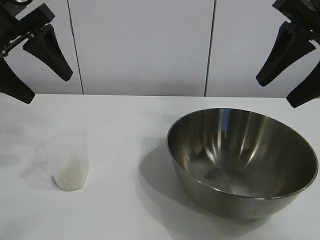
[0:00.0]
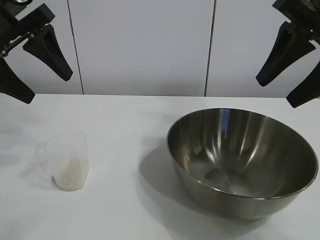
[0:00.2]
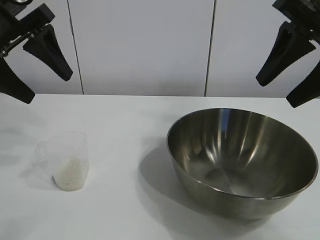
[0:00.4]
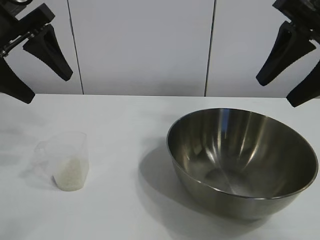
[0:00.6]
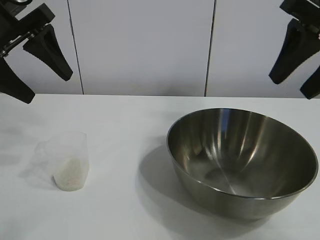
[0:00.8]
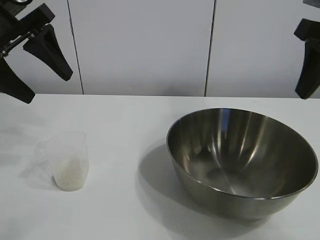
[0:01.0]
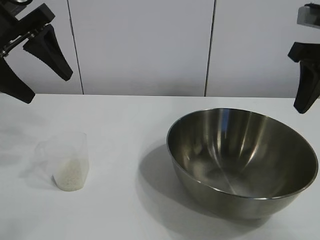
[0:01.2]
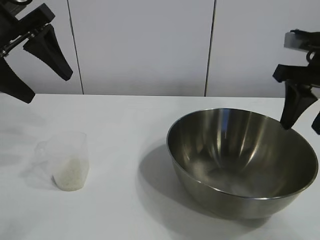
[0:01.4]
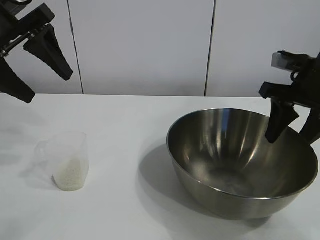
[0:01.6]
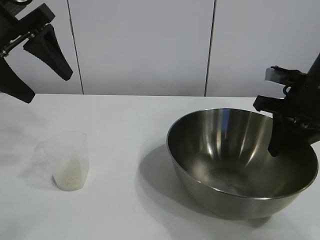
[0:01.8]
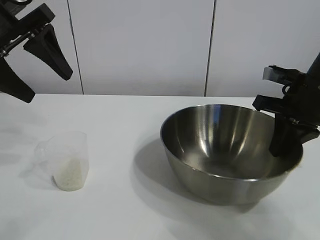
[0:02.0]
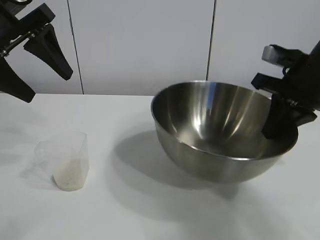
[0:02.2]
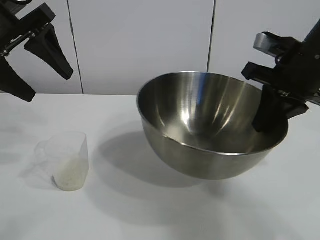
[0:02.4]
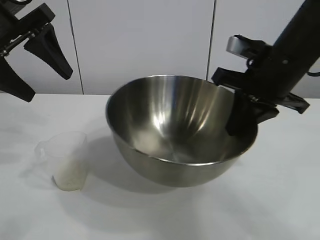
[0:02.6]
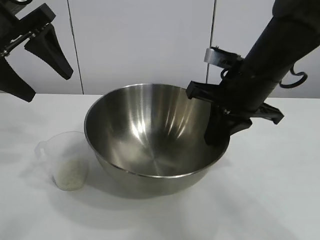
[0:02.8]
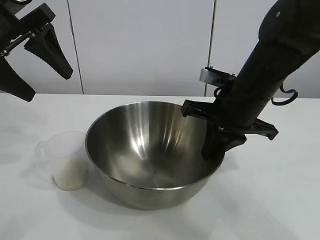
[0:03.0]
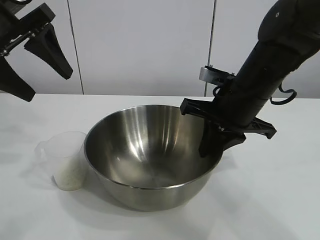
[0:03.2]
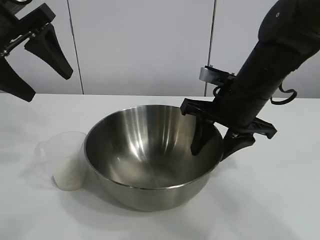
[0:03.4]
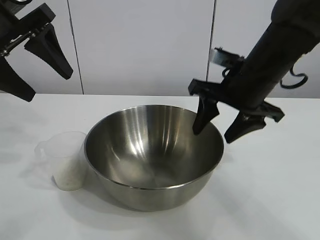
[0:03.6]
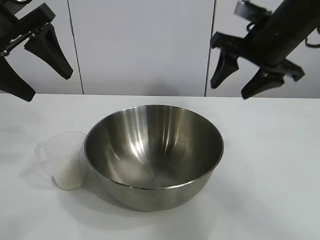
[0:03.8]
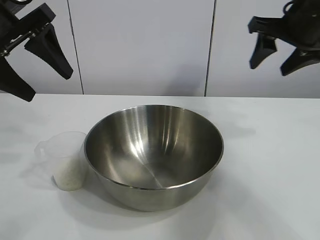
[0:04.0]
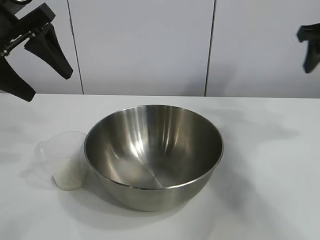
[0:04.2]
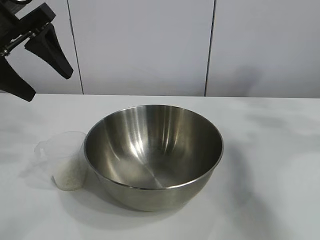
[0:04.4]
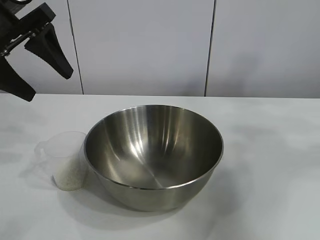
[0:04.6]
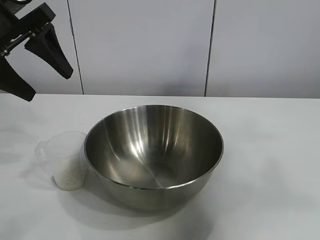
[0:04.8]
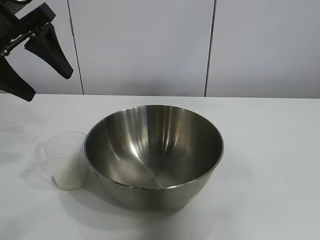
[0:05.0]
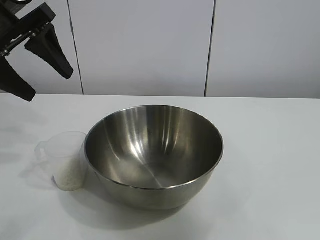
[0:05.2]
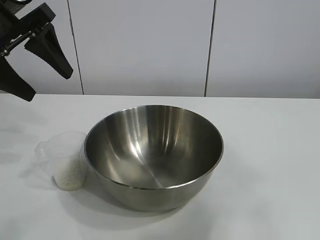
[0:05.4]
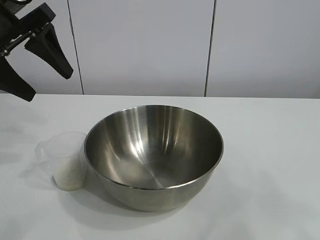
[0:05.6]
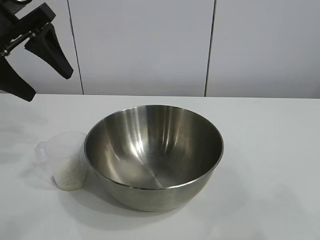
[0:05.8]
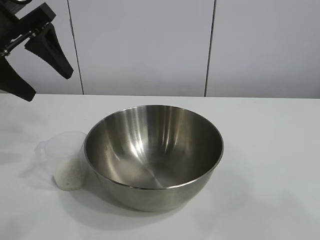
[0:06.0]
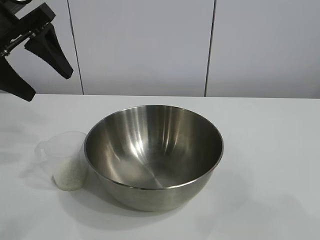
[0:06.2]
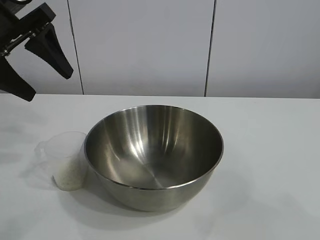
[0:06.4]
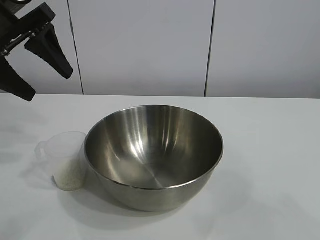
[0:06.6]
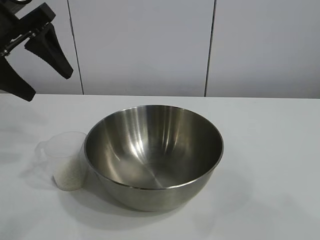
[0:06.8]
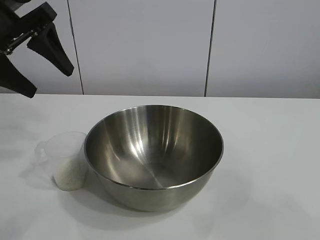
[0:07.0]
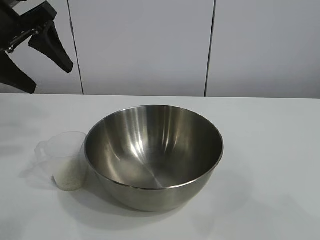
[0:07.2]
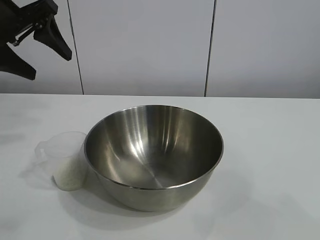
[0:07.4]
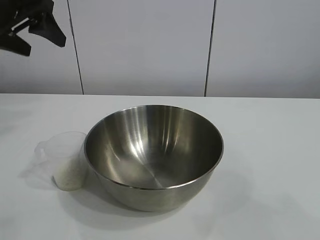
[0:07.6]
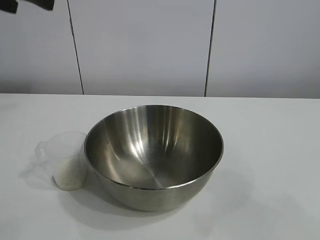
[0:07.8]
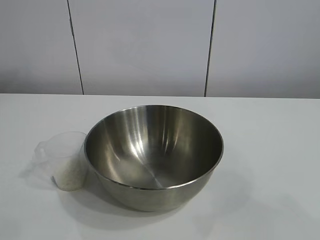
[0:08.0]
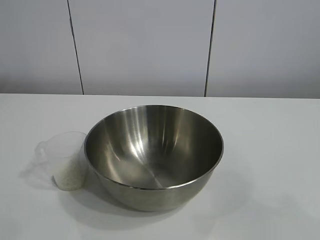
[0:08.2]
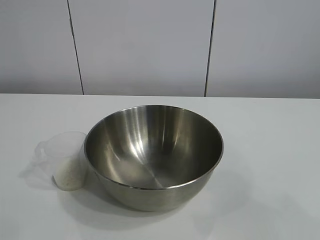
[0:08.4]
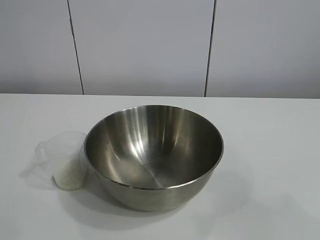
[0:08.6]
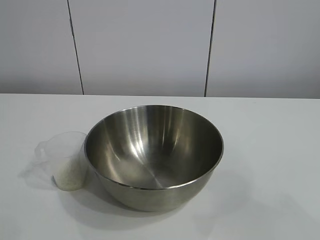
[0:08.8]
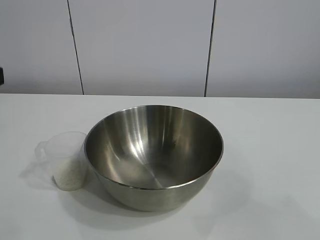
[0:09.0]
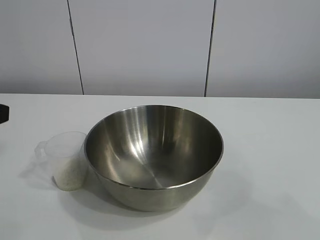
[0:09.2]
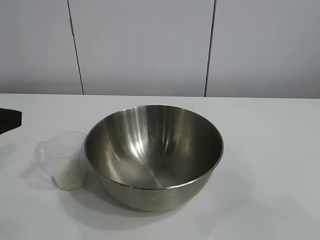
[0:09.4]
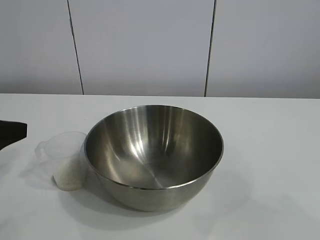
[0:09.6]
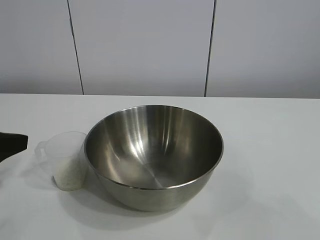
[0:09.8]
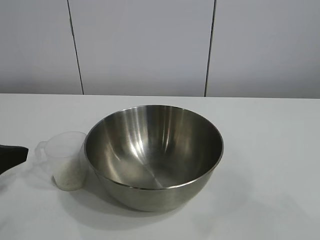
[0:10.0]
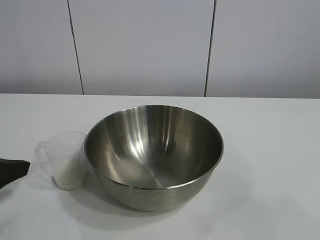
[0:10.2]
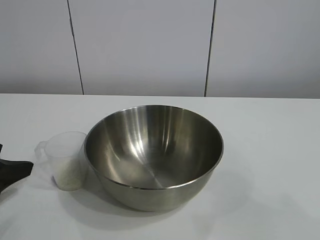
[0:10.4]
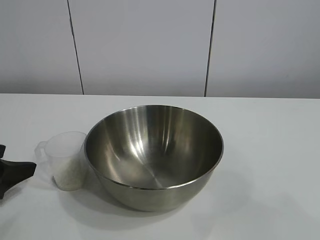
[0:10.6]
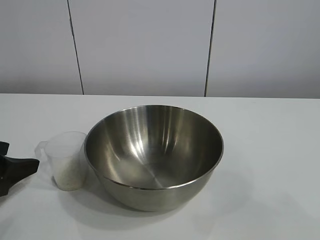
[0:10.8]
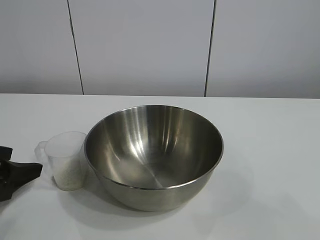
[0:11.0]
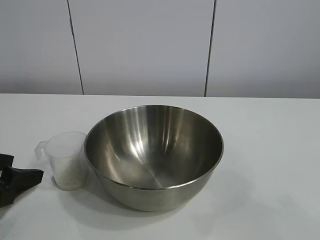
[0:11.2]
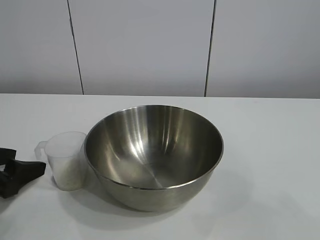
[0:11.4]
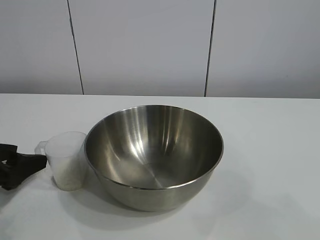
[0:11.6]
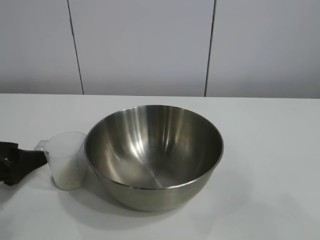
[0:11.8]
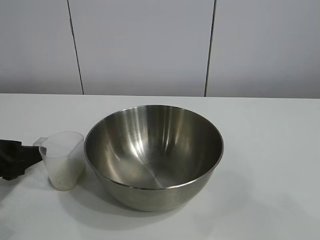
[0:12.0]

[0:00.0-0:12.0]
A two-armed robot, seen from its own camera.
Task of the whole recording: the right gripper grasp the rice container and place it in the center of the table, the left gripper grasp the rice scoop and pour the rice into the rice container.
Step, 0:00.6 to 0:03.4: Move the bowl in the center of view with right gripper.

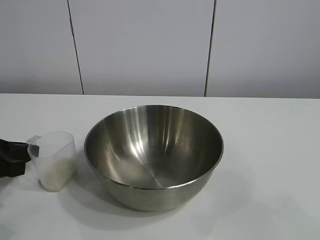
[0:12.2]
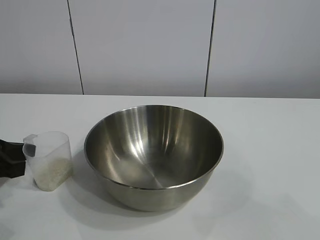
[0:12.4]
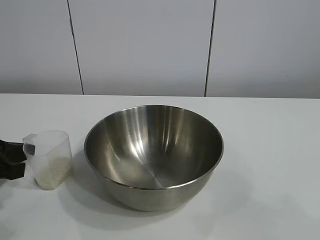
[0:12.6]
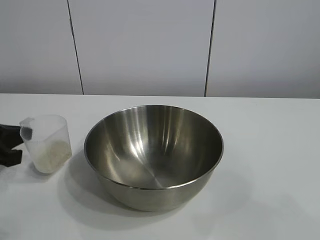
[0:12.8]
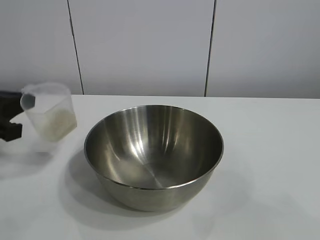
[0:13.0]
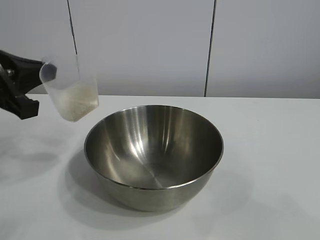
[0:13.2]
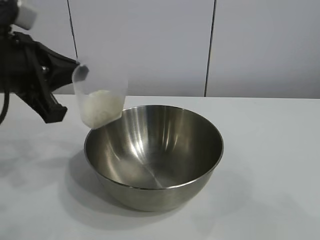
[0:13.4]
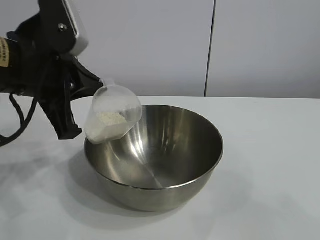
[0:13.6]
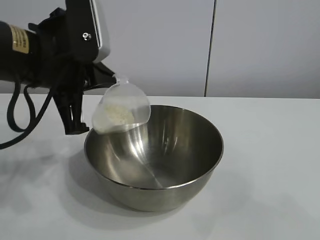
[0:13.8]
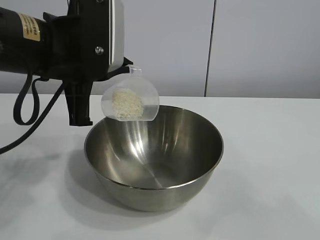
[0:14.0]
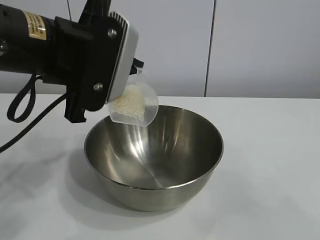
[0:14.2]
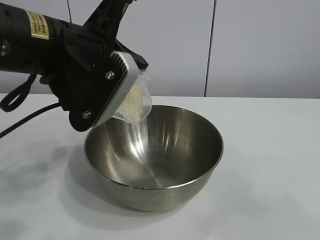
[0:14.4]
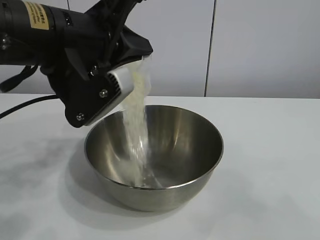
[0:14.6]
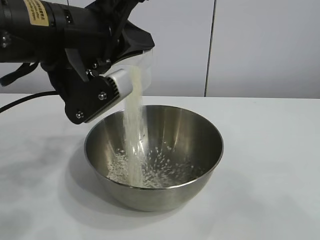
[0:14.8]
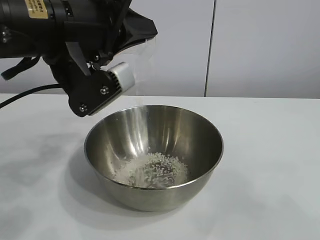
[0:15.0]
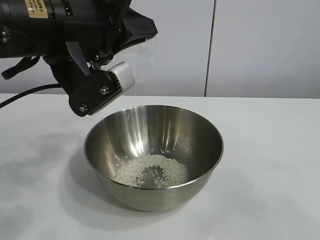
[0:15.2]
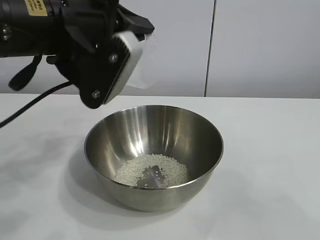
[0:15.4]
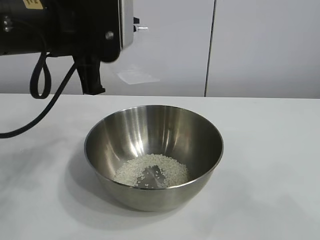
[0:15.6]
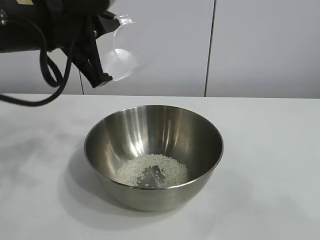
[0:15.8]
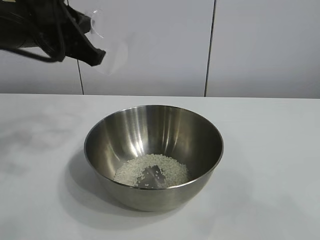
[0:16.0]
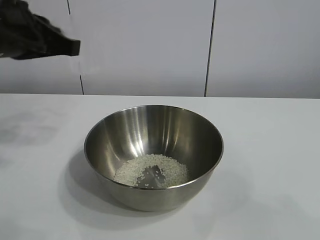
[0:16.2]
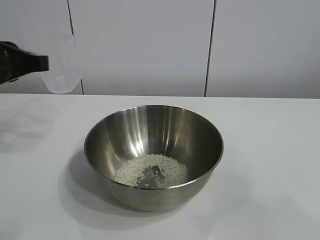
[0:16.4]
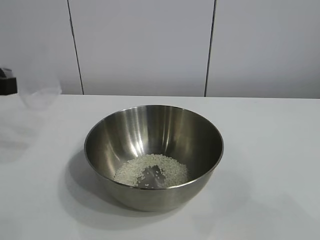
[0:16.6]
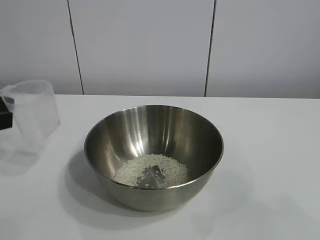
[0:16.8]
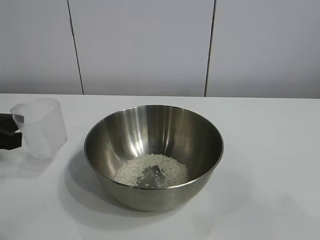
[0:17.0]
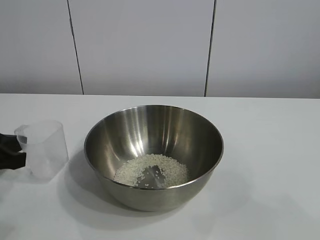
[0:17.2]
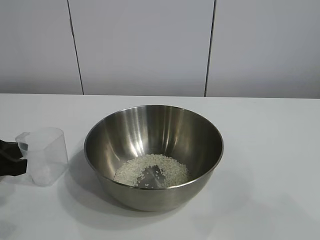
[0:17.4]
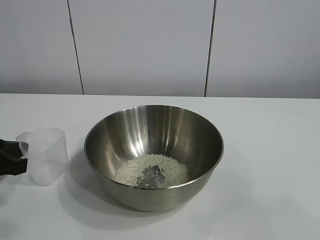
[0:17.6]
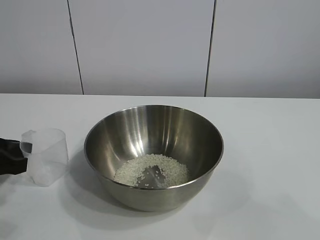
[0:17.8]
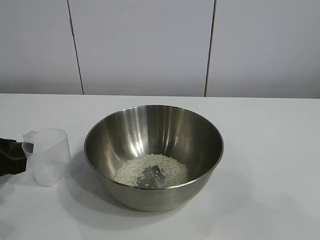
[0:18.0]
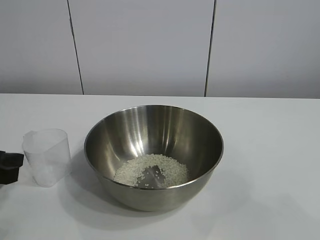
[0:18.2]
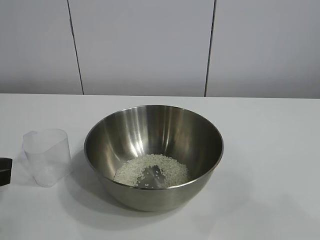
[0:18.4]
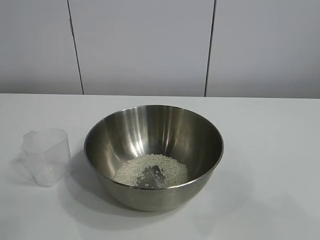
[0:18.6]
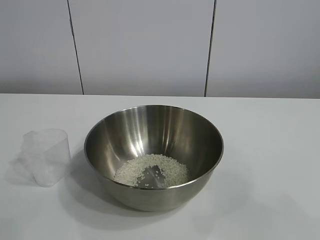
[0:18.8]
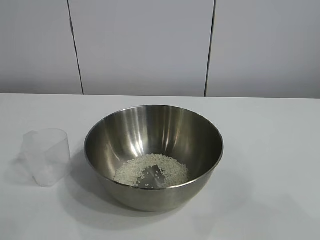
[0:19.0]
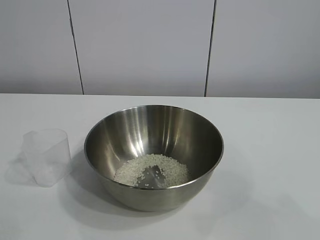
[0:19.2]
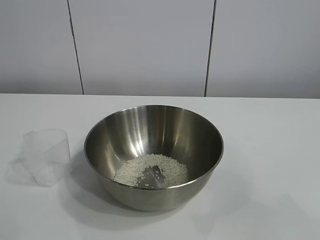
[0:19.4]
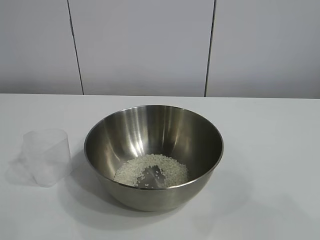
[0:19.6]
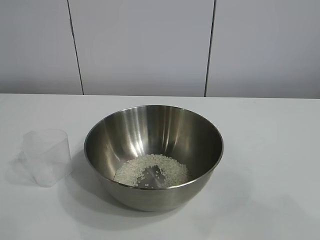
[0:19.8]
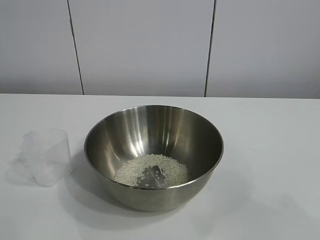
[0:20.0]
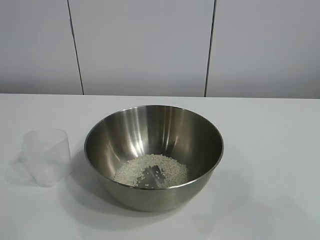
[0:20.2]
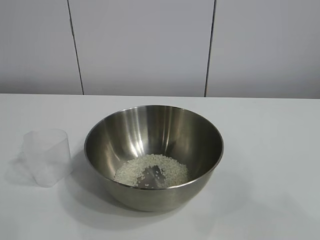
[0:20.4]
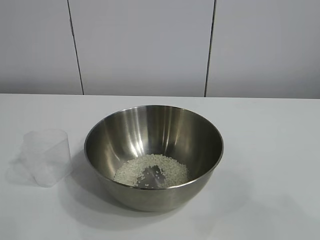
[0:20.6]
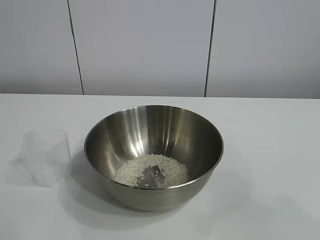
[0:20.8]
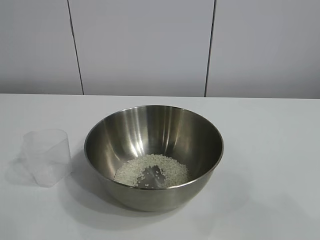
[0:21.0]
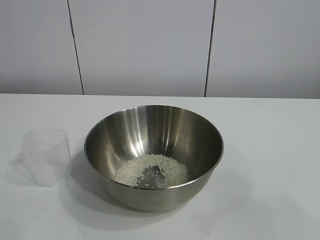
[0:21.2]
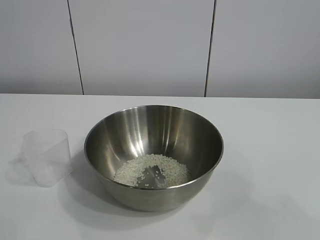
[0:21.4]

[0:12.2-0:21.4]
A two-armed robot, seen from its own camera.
Task of the whole recording: the right gripper grasp the rice container and place it in the center of the table, the left gripper grasp the rice scoop and pour the rice into the rice container.
Step, 0:12.6 to 0:15.2: Pour the rice from the cup into the bowl with the left gripper.
Step, 0:15.4 to 0:17.8: Place the cup on the table with the left gripper.

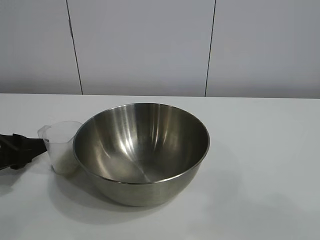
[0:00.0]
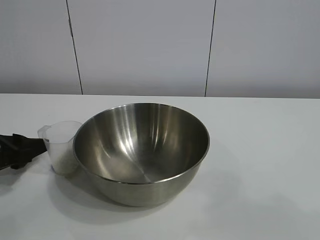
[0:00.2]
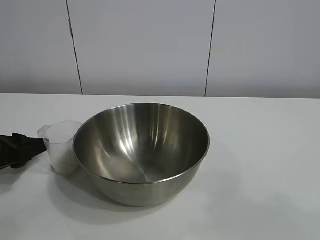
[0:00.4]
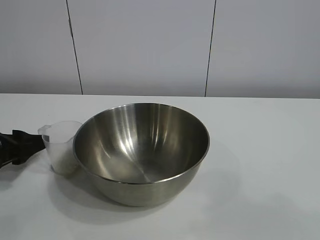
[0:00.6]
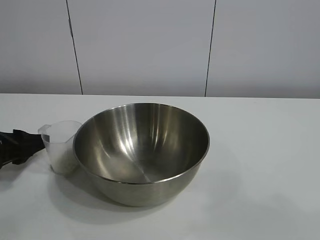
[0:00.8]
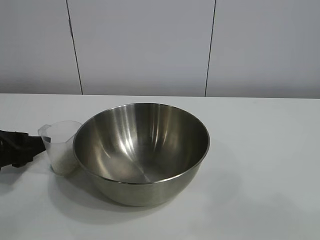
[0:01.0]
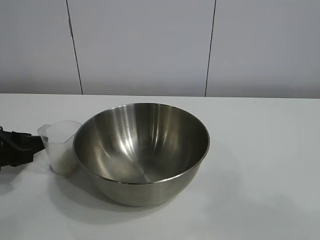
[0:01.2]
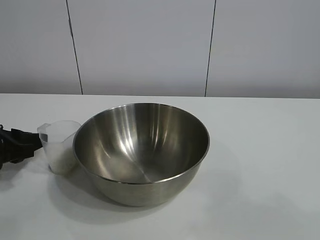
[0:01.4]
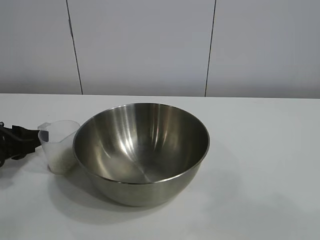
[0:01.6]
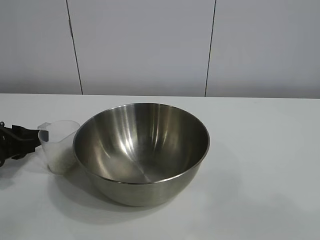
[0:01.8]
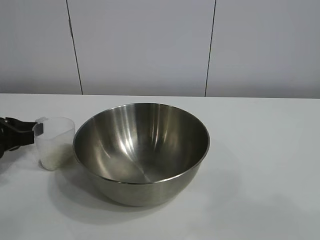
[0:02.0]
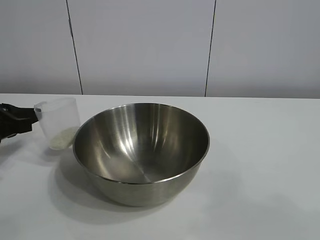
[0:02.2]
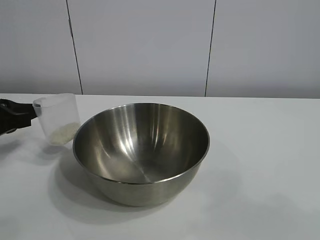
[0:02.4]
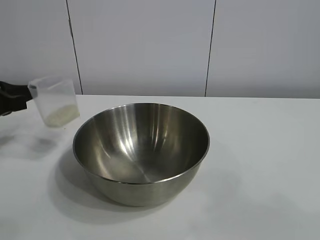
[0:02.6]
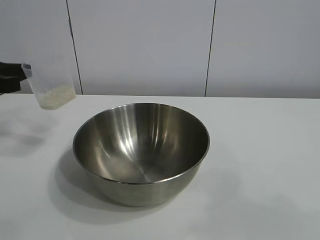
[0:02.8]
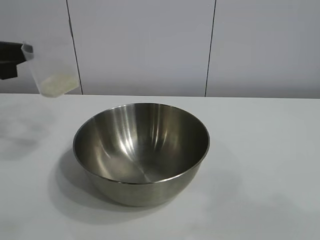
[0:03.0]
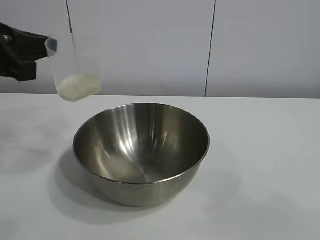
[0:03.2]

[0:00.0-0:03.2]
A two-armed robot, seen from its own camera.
Task of the whole recording: the right gripper grasp the rice container and place it in the center of the table, the left gripper grasp the rice scoop and pour the rice into the rice container.
Step, 0:00.0 to 0:02.0: Grasp the cup with rice in it with left gripper.
